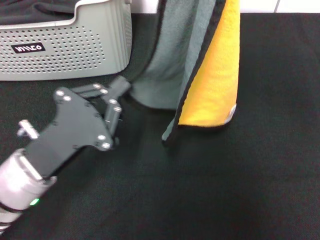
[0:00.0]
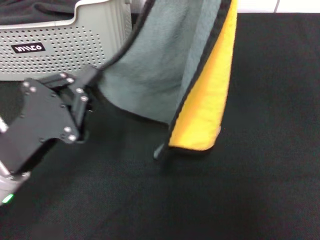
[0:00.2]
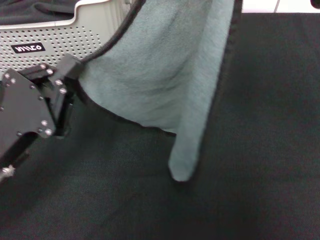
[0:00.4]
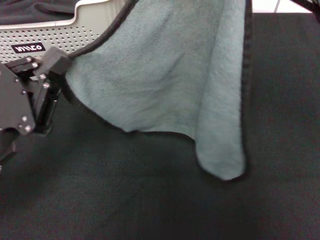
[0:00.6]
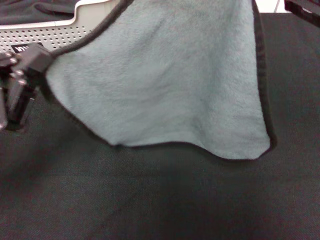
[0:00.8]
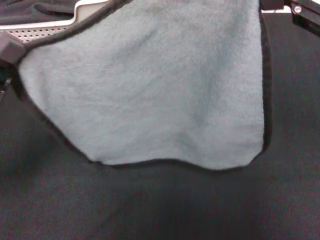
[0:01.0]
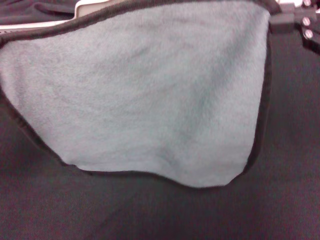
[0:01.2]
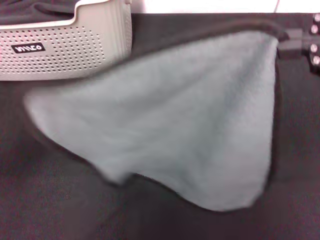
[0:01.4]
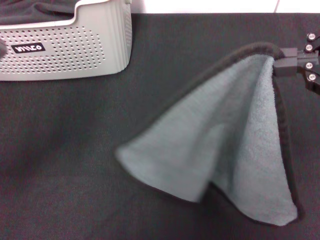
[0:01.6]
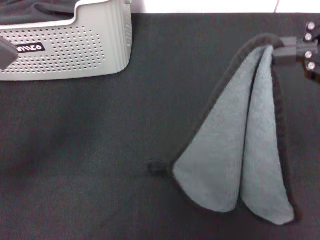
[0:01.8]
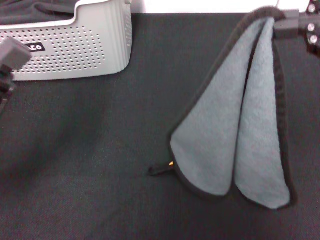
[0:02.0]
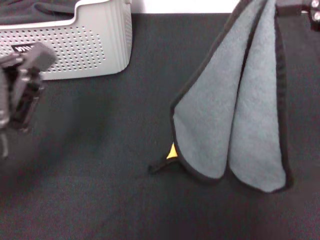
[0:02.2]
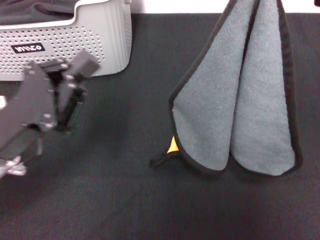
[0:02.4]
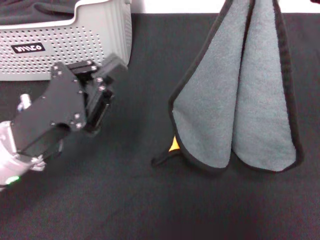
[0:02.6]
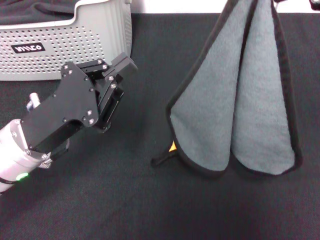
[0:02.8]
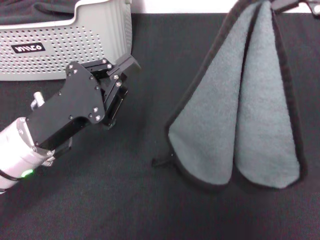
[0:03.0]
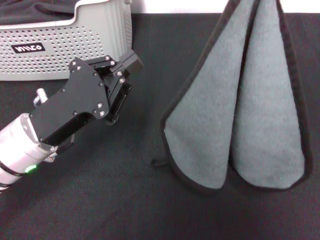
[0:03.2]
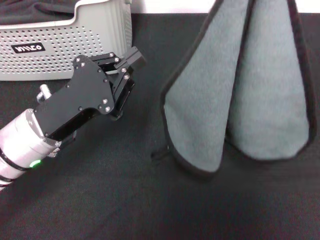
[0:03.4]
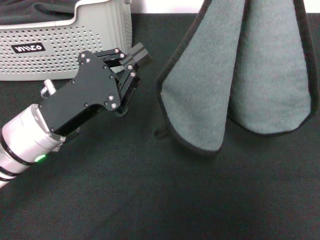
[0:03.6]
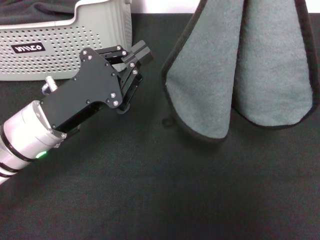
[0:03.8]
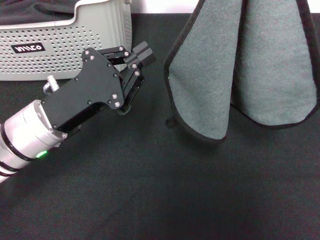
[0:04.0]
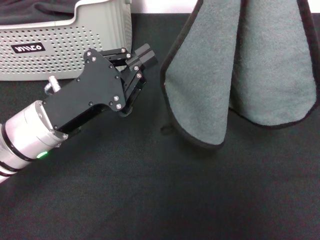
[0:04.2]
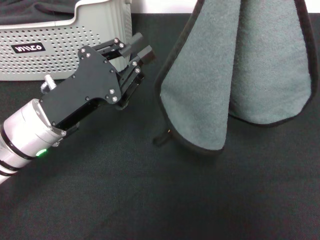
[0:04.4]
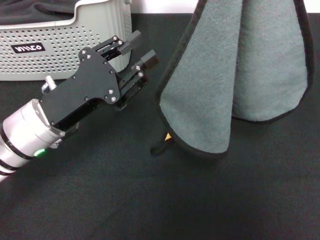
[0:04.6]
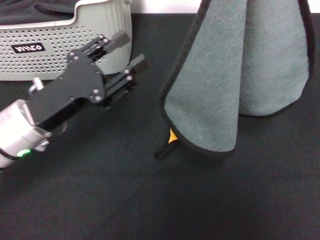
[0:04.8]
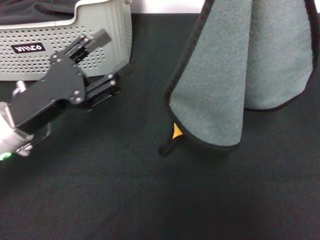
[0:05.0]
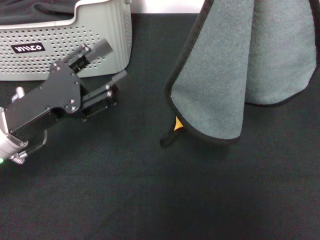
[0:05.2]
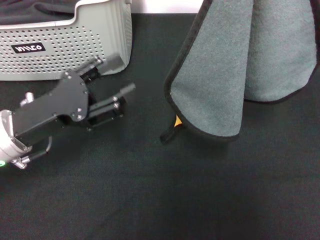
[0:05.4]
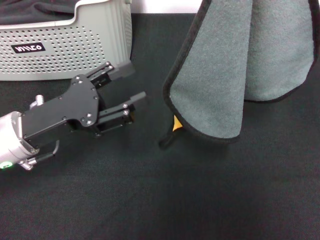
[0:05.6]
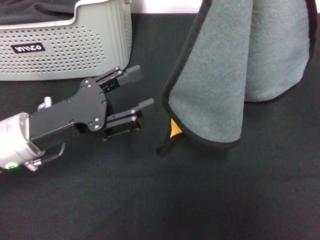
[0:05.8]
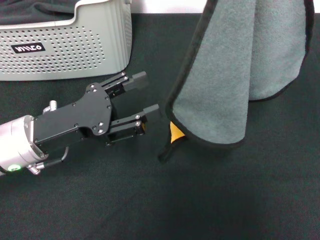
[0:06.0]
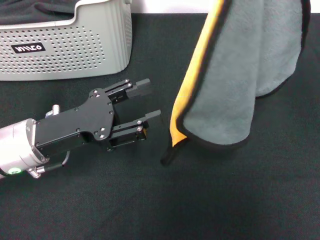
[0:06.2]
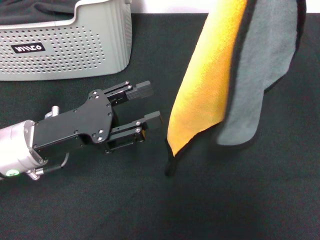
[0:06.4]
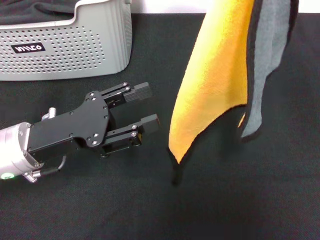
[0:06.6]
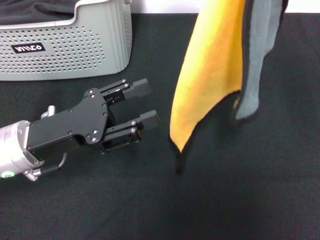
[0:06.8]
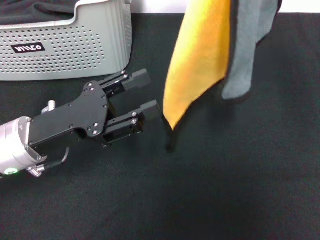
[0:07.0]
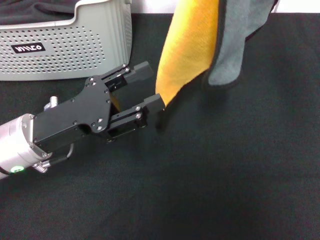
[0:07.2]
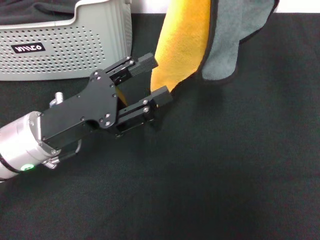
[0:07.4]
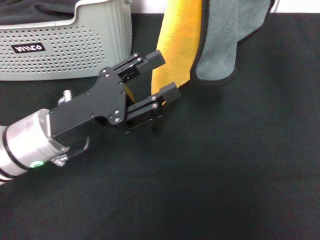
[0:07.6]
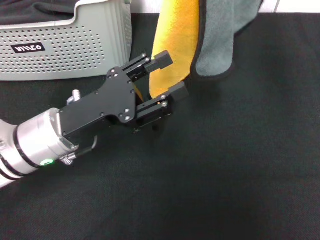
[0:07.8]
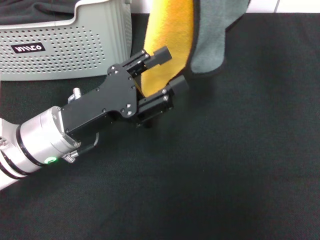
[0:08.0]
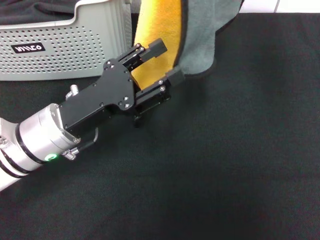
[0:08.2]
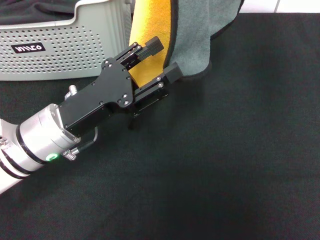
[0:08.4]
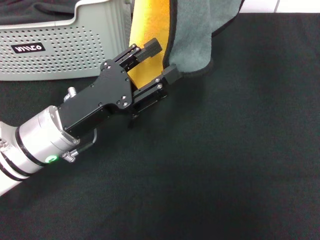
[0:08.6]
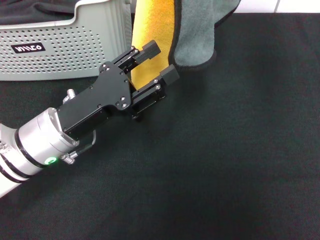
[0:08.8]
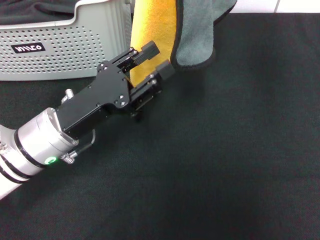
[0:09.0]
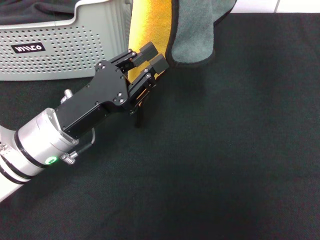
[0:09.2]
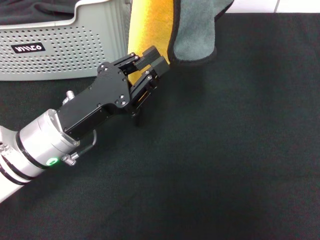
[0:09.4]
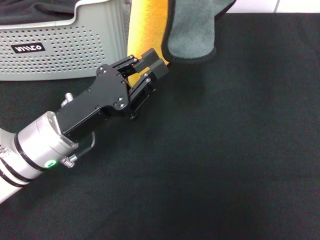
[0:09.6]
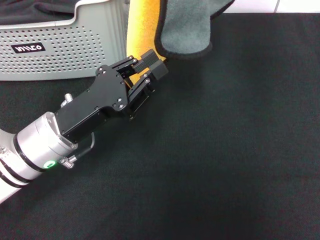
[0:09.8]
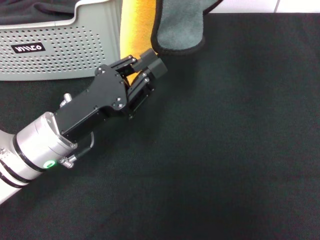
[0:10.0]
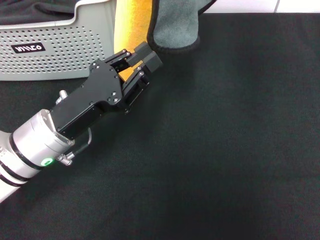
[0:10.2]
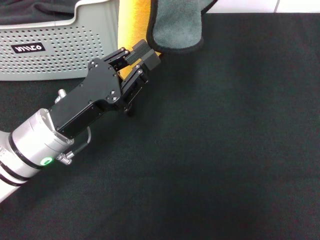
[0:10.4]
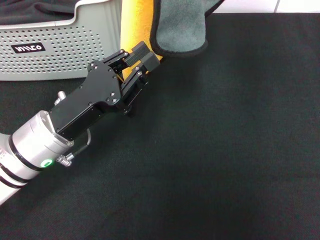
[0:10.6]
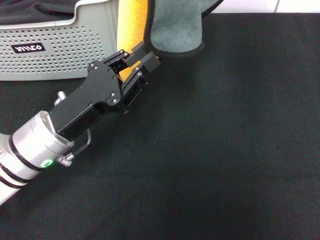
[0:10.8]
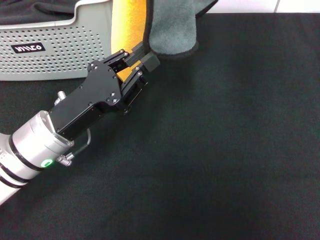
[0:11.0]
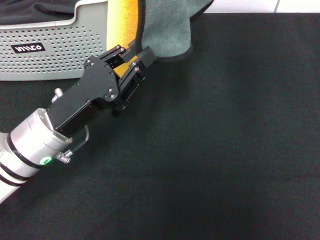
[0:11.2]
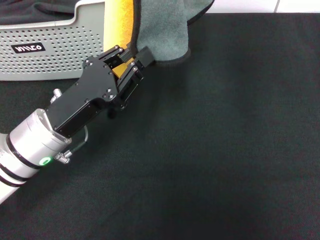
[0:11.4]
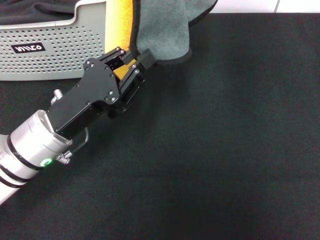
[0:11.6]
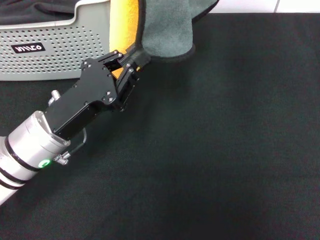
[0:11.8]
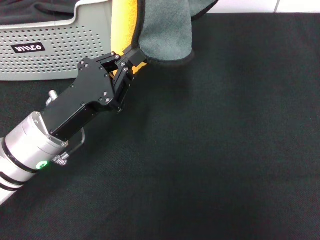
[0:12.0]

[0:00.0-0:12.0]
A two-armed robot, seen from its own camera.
Task of the whole recording: pick up the towel from the storage box and lay it flat on the black tablecloth.
0:00.0 to 0:01.6: The left gripper heads to the left and upward, covering some 15 cm. The right gripper travels backward and downward by roughly 10 cm.
0:01.6 to 0:03.0: The left gripper goes approximately 10 cm to the right and downward; the right gripper moves upward, some 10 cm.
0:03.0 to 0:04.4: The right gripper moves upward, roughly 5 cm.
0:04.4 to 0:06.0: The left gripper opens.
0:06.0 to 0:07.6: The right gripper ends up roughly 5 cm from where it was.
0:07.6 to 0:09.0: There are only small adjustments of the grippers.
0:09.0 to 0:10.4: The left gripper closes up.
0:10.4 to 0:12.0: Both grippers stay put.

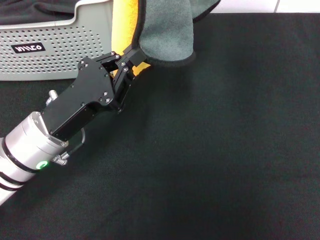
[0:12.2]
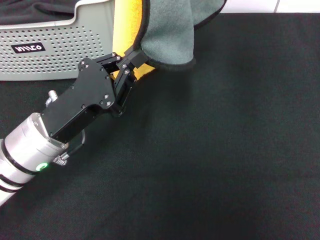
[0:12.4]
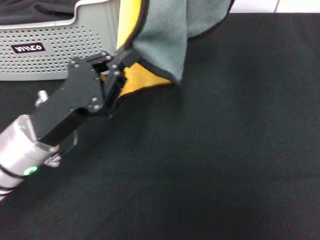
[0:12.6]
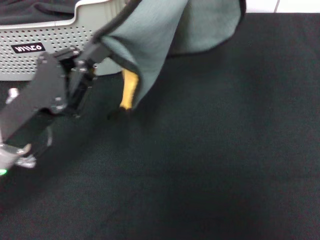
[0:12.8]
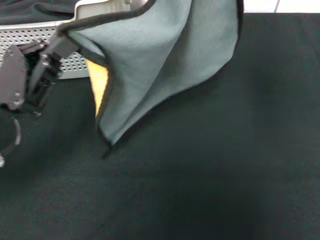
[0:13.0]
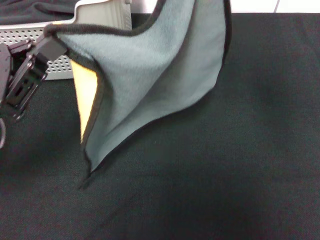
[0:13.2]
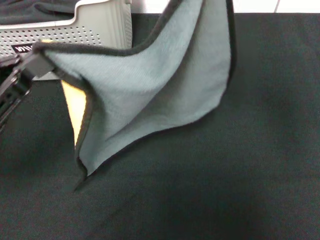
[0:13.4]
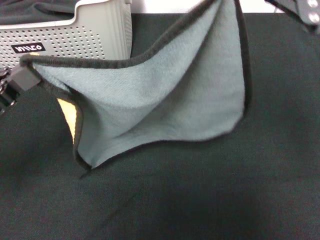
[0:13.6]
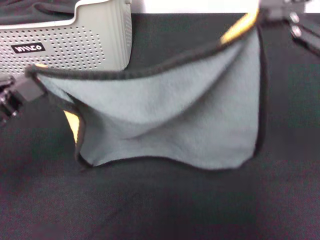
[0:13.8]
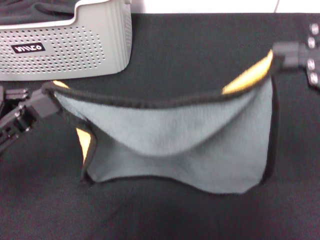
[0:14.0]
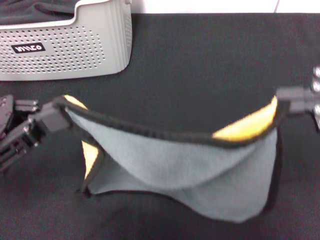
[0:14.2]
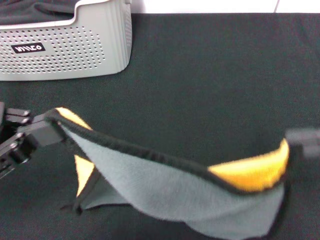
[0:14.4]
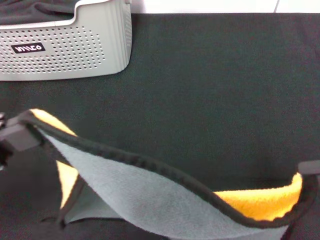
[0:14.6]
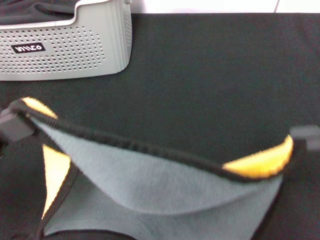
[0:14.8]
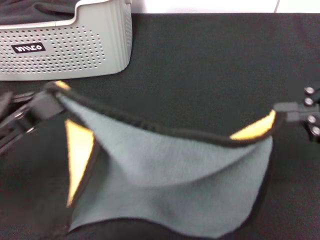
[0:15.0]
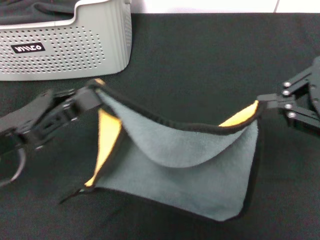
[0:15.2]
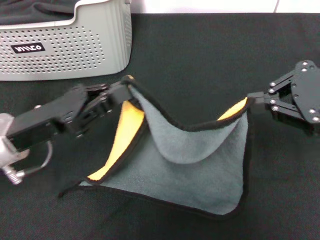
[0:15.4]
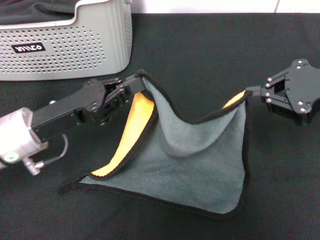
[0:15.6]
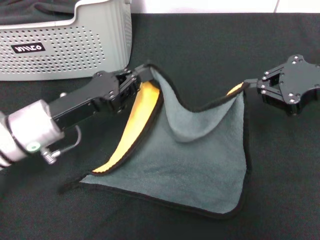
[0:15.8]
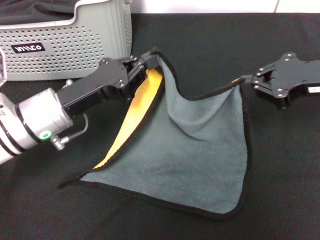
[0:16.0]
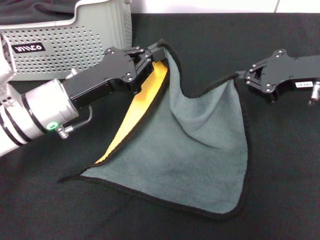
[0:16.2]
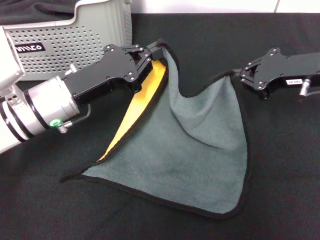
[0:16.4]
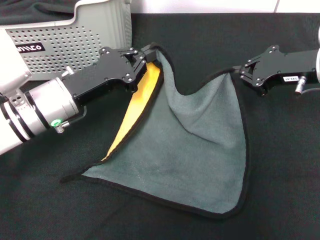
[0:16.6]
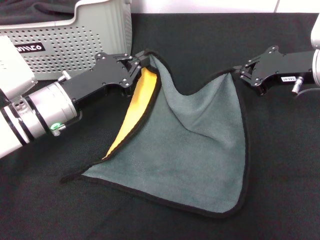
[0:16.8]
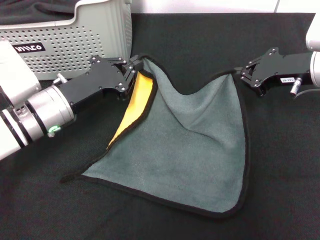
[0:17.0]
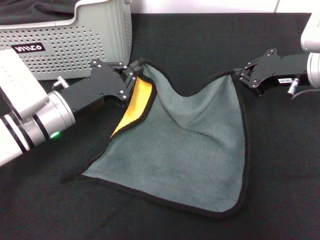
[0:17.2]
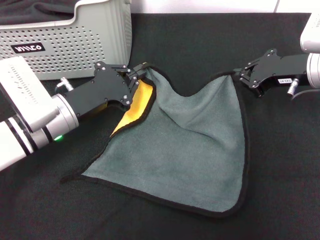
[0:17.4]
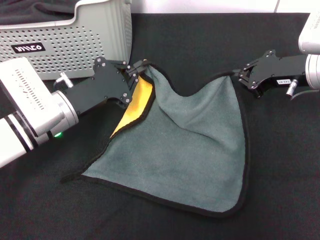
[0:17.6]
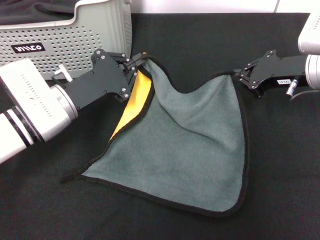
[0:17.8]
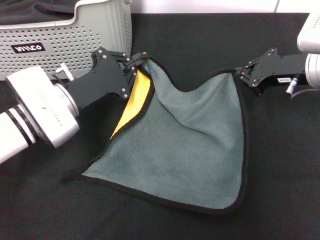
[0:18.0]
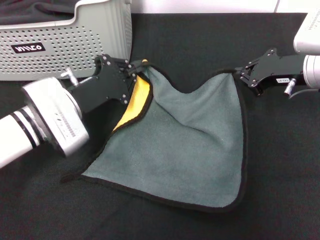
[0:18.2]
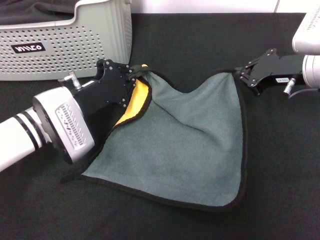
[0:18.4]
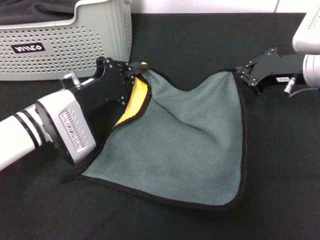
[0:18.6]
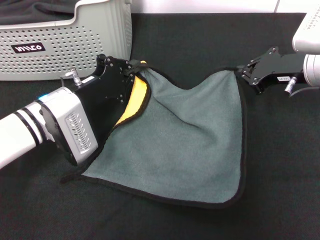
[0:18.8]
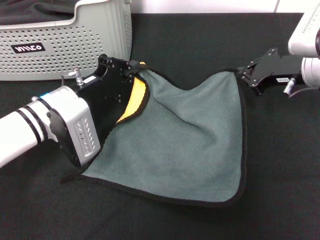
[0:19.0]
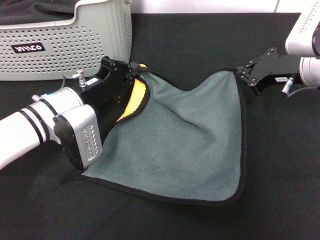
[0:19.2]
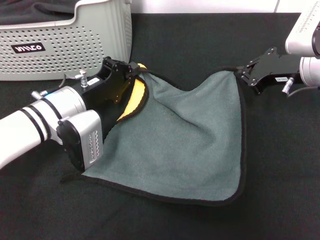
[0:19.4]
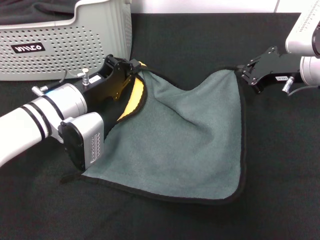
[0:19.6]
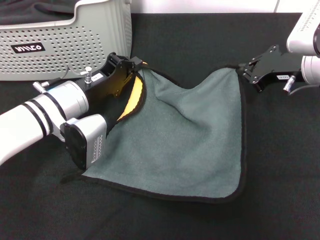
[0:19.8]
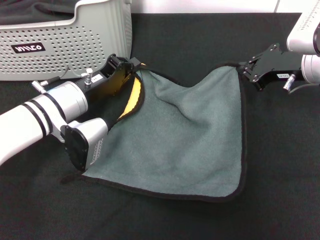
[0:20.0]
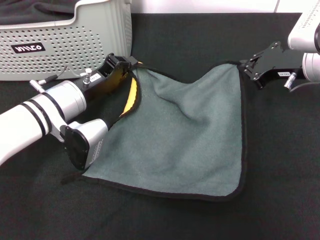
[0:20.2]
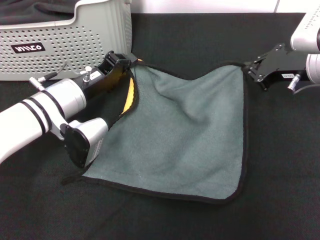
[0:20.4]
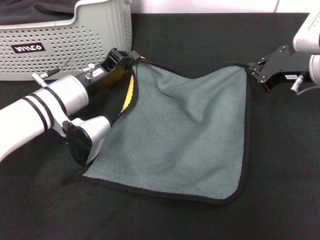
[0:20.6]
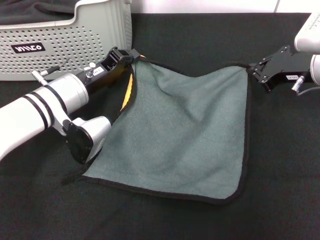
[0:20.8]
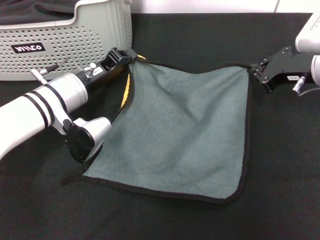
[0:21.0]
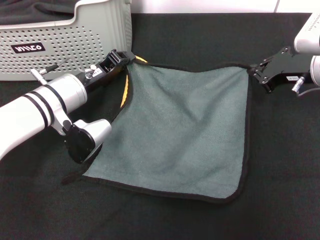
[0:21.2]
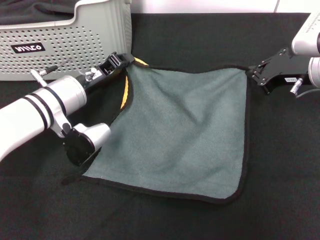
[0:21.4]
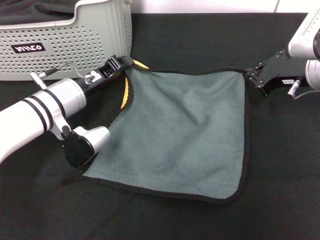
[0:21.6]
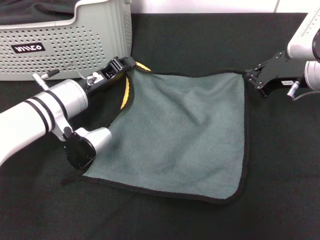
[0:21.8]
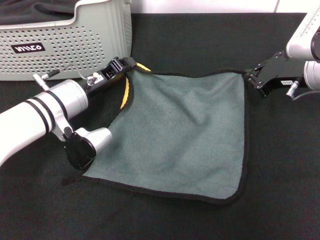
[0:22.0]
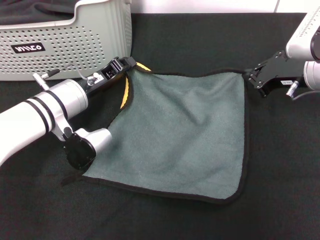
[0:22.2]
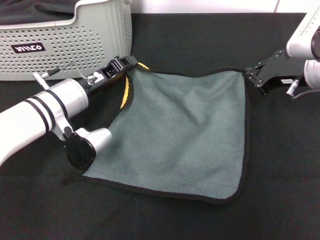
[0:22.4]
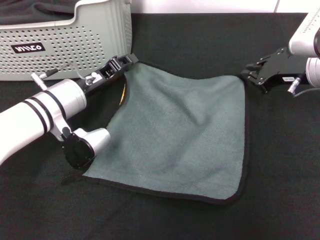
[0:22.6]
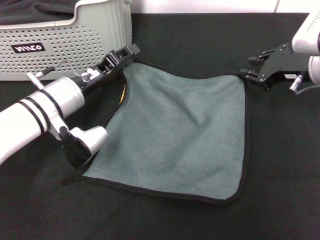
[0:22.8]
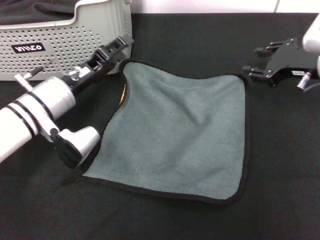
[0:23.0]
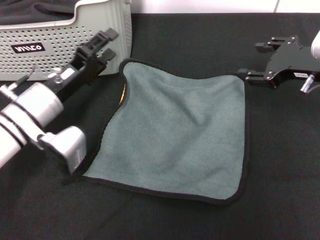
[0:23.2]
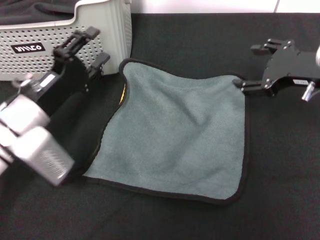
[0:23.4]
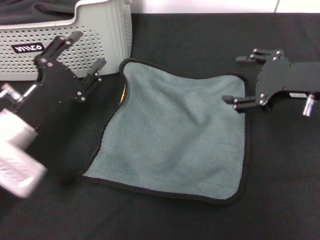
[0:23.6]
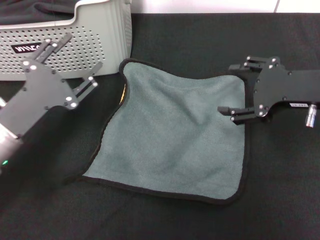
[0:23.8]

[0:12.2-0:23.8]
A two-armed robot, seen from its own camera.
Task of the whole recording: pick up the towel from the storage box and lay it flat on the black tablecloth.
Step, 0:12.2 to 0:22.6: Spread the towel flat with the right gripper.
0:12.2 to 0:13.6: The right gripper goes about 15 cm downward, to the right and backward. Meanwhile the left gripper is displaced to the left and upward by some 15 cm.
0:13.6 to 0:15.0: The right gripper is displaced downward by roughly 10 cm.
0:15.0 to 0:16.6: The right gripper is displaced forward and downward by approximately 20 cm, while the left gripper moves forward, to the right and downward, roughly 15 cm.
0:21.0 to 0:22.4: The grippers move only a little.
0:22.4 to 0:23.8: The left gripper heads backward and to the left, covering approximately 10 cm, and opens, while the right gripper heads backward and upward, covering some 10 cm, and opens up.
